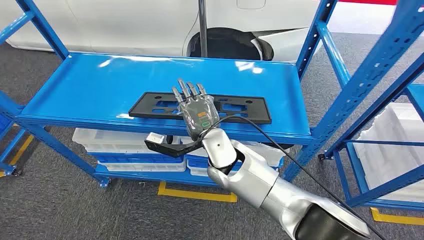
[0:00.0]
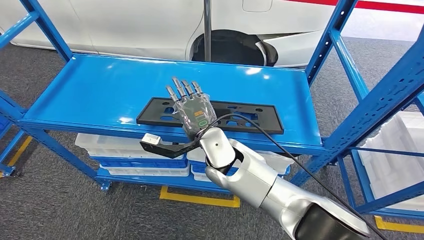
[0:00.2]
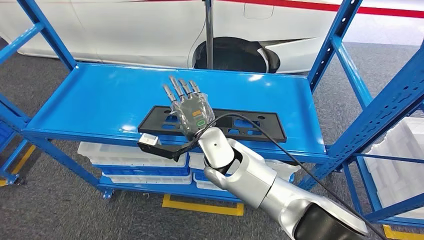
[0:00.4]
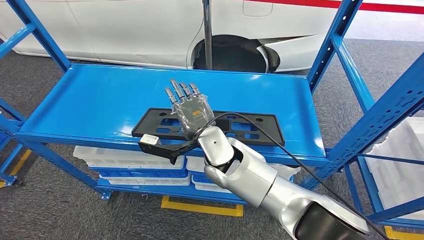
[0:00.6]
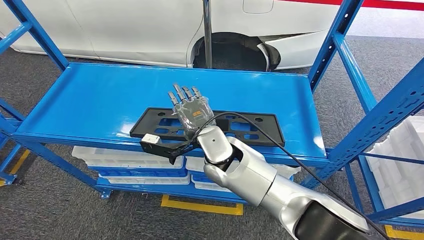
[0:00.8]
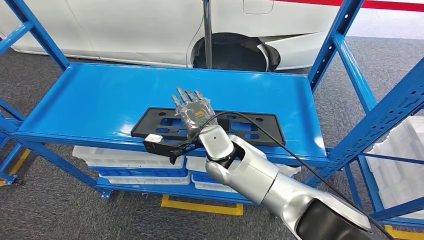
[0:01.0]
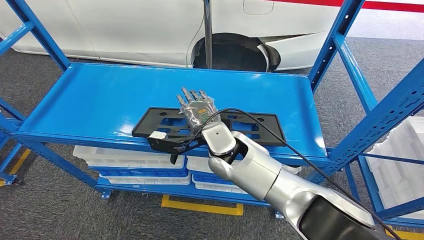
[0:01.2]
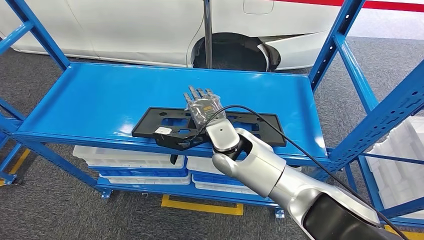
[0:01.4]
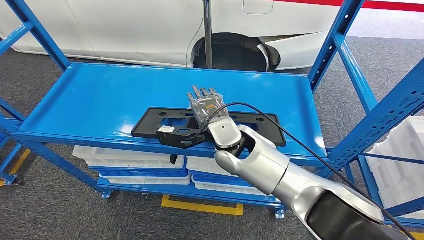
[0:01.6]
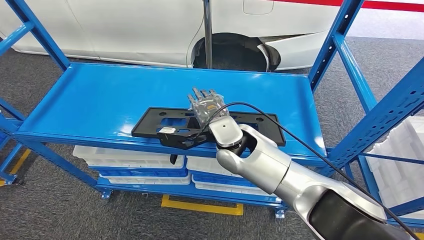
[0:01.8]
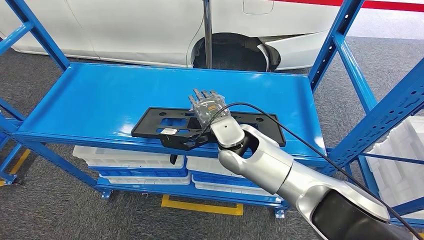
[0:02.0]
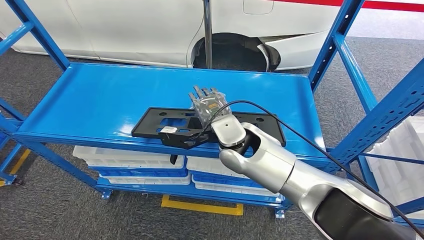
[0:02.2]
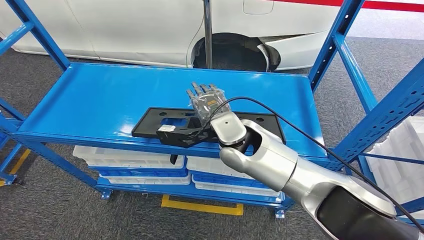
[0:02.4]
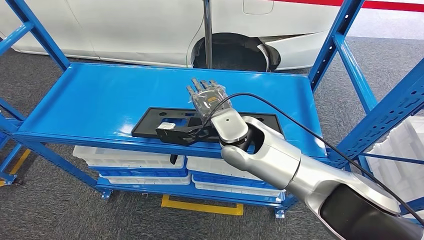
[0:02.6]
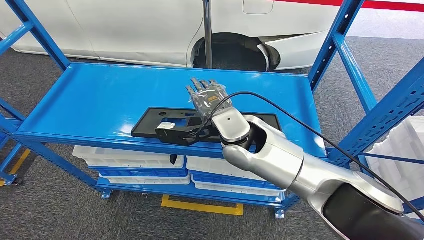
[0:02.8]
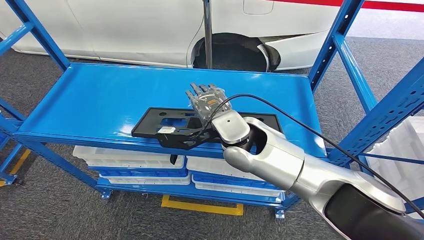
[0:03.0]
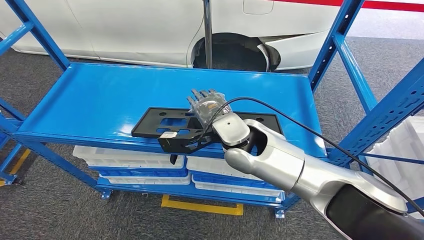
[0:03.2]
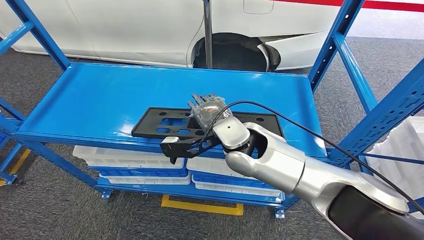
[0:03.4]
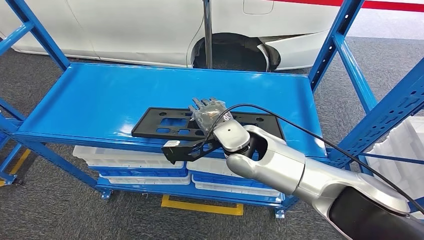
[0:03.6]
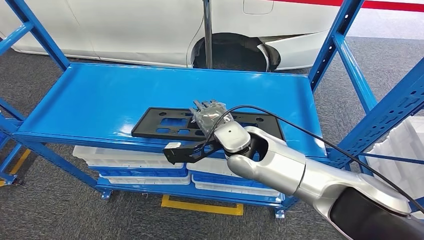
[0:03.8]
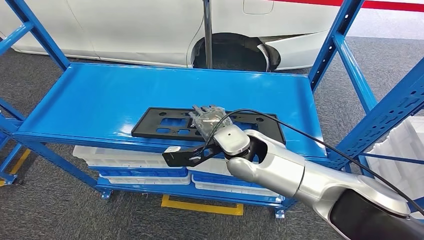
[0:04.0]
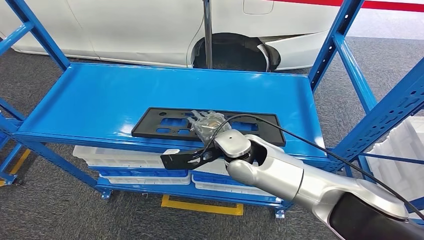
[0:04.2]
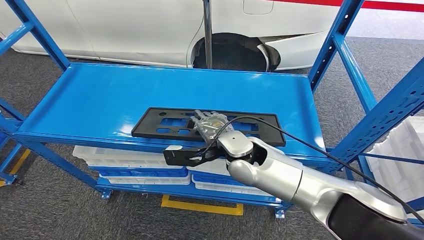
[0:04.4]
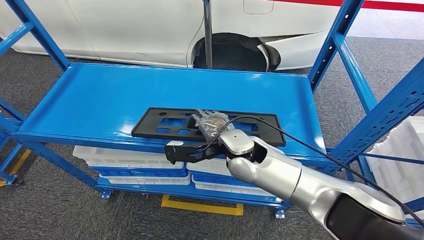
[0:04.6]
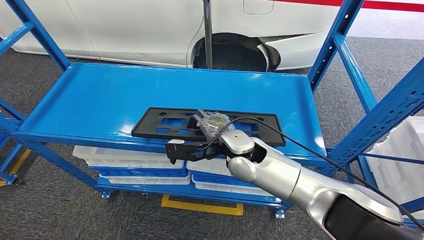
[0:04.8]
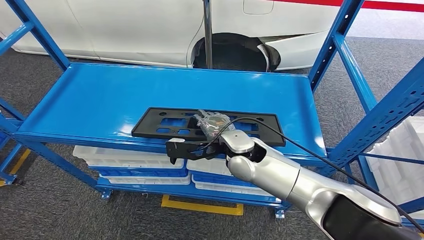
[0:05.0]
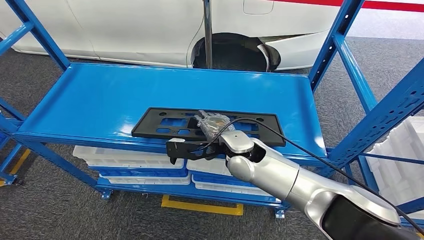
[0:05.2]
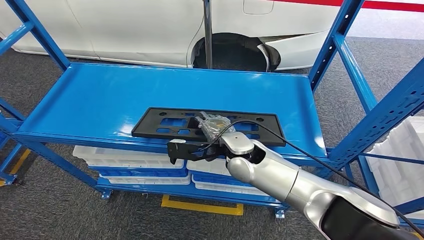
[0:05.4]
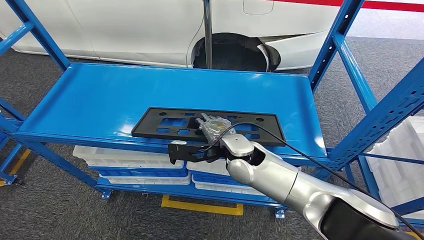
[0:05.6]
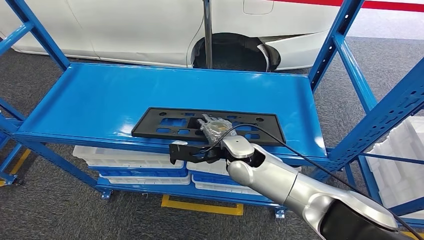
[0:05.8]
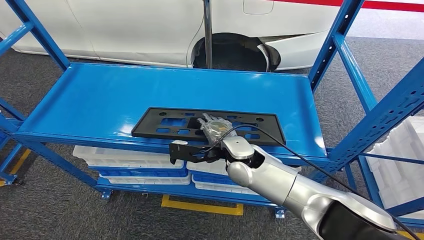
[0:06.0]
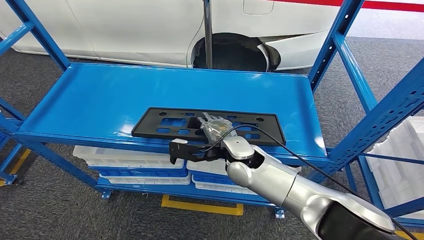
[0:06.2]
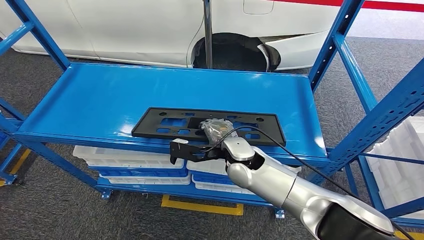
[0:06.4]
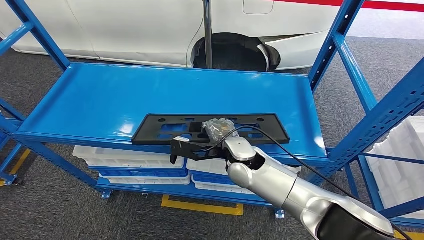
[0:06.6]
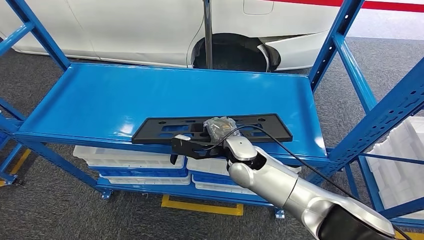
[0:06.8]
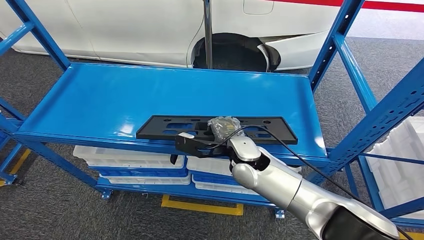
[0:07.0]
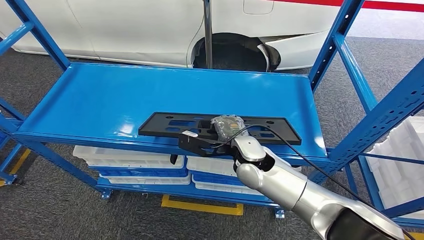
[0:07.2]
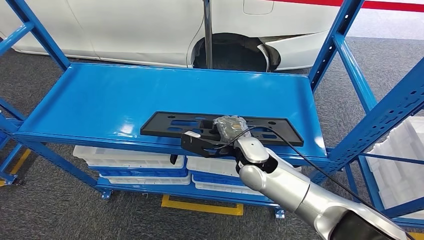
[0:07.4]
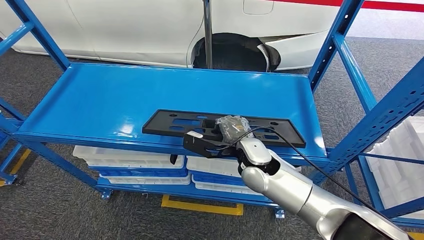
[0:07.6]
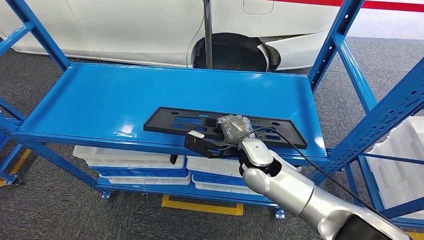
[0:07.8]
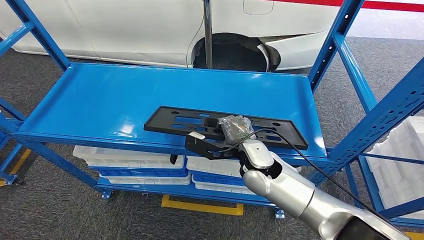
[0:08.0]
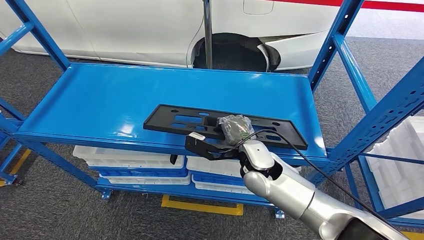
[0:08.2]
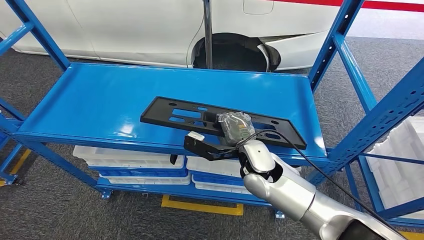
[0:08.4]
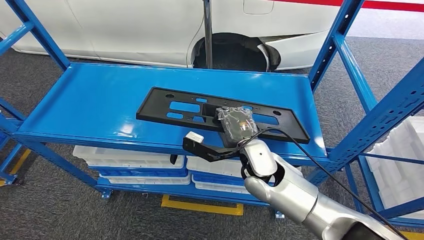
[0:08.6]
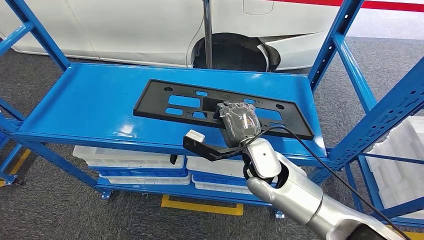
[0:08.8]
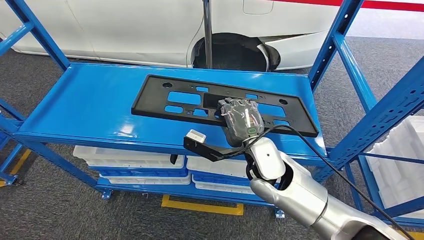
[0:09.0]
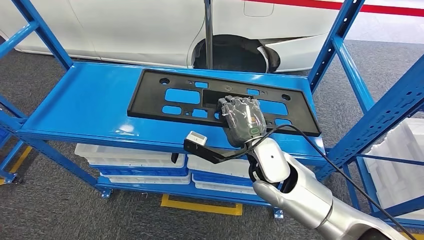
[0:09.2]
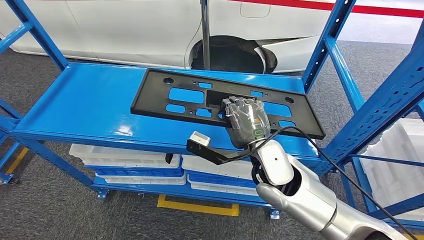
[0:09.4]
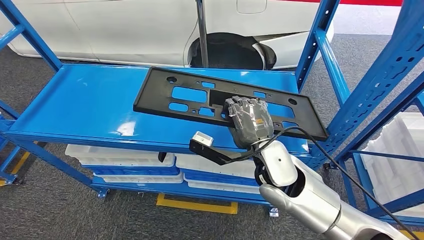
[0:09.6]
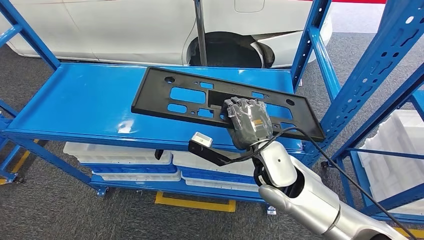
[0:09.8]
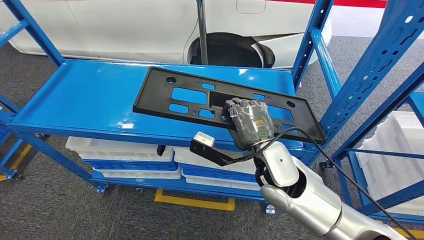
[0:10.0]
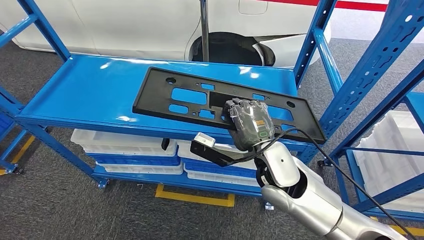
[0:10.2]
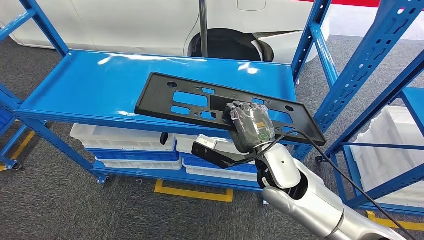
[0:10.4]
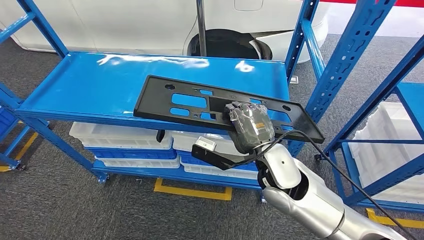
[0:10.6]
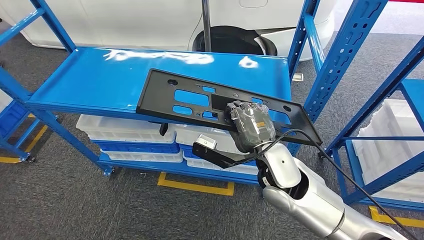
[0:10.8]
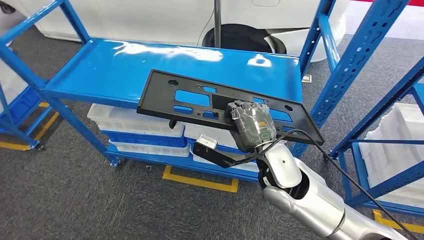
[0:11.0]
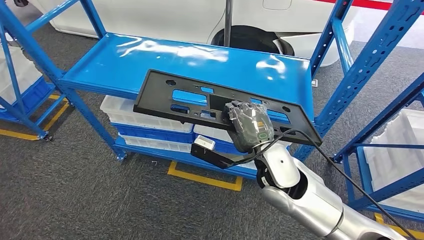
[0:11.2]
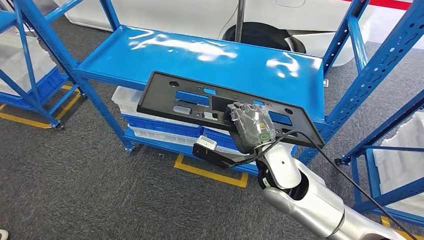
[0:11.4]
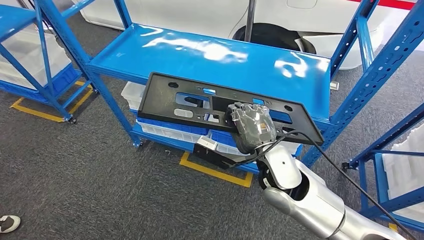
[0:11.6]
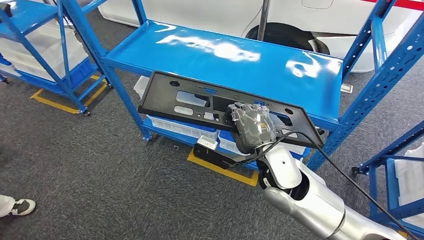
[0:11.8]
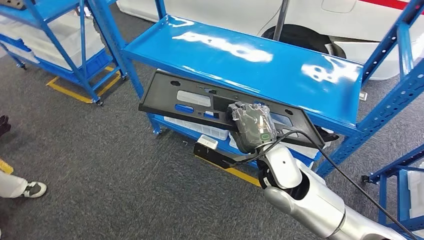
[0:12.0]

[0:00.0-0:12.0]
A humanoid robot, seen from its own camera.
Step, 0:00.0 to 0:08.6: Pick up the large material from the shelf.
0:01.6 to 0:03.0: The hands move only a little.
0:03.0 to 0:04.4: The right hand is displaced downward by some 5 cm.
0:04.4 to 0:06.0: The hands move only a little.
0:06.0 to 0:07.6: The hands move only a little.

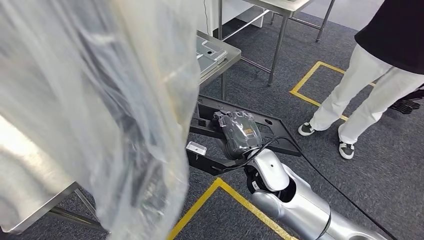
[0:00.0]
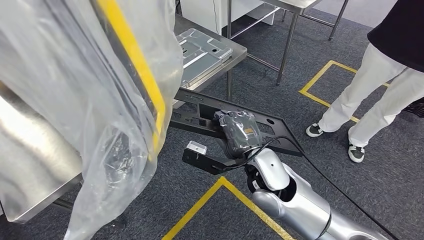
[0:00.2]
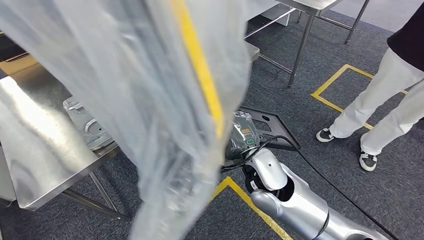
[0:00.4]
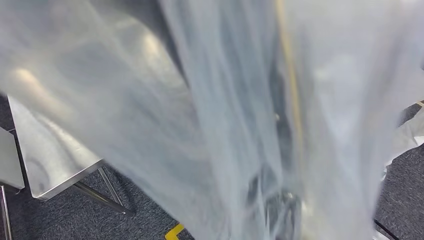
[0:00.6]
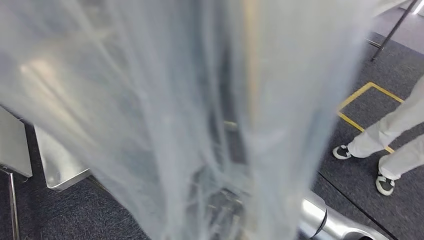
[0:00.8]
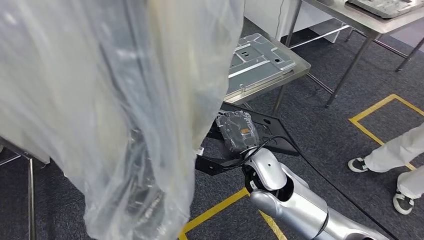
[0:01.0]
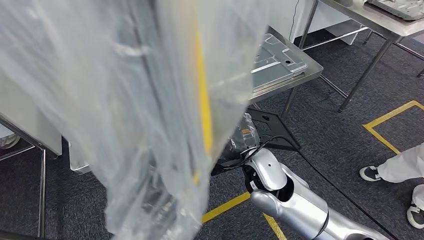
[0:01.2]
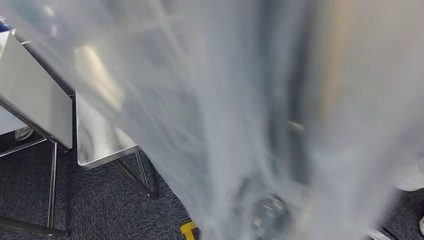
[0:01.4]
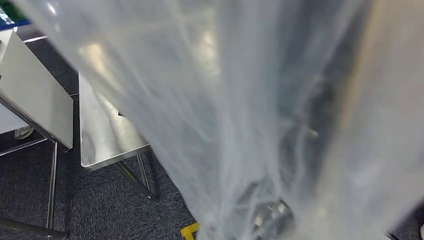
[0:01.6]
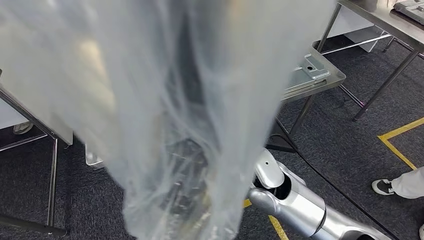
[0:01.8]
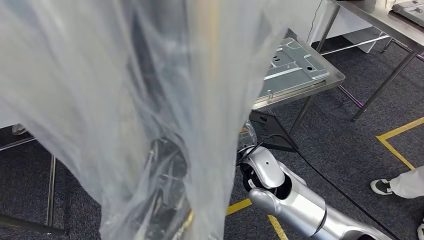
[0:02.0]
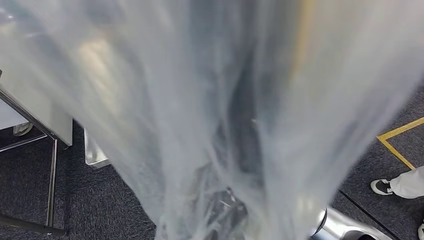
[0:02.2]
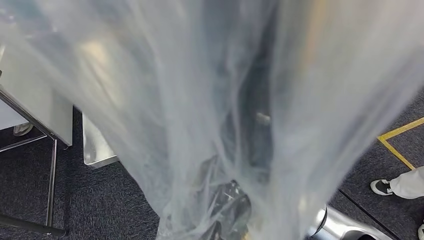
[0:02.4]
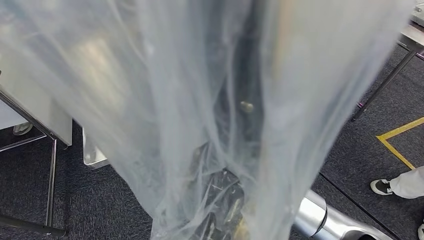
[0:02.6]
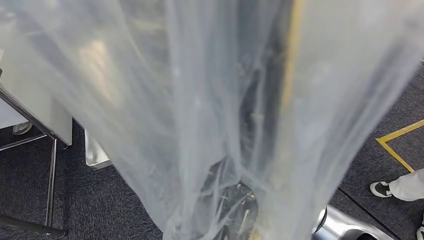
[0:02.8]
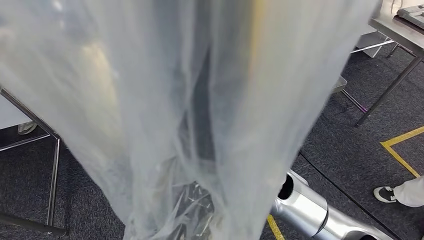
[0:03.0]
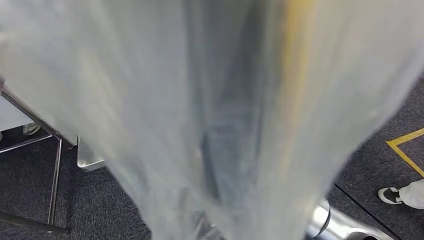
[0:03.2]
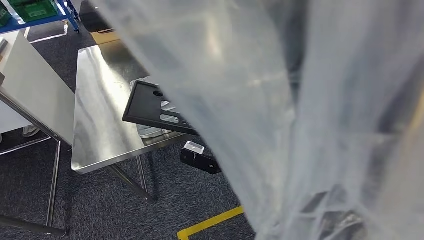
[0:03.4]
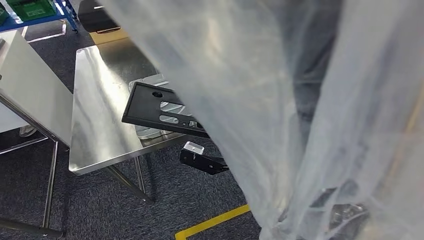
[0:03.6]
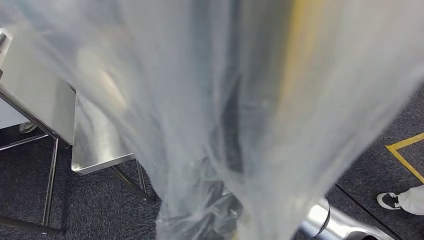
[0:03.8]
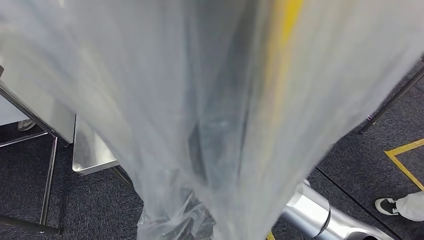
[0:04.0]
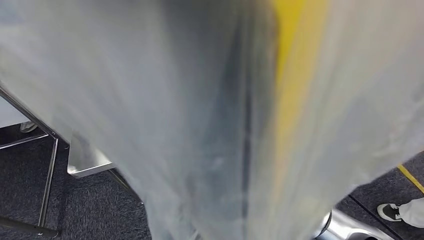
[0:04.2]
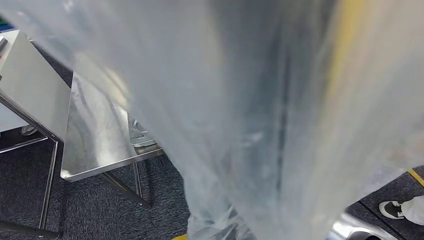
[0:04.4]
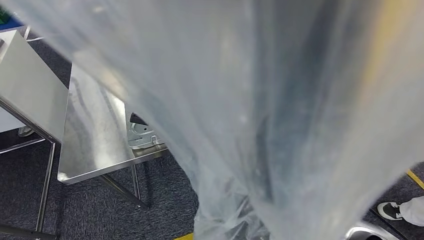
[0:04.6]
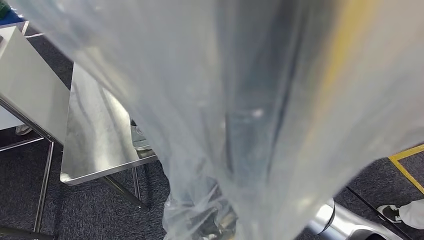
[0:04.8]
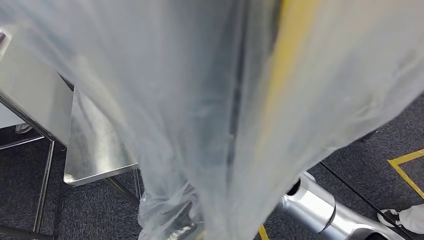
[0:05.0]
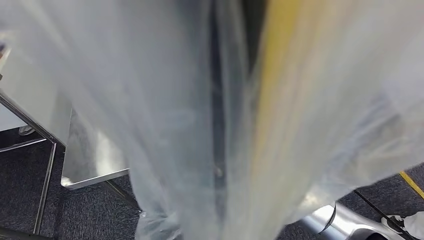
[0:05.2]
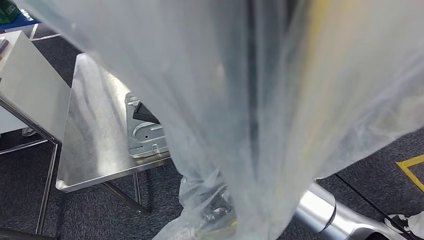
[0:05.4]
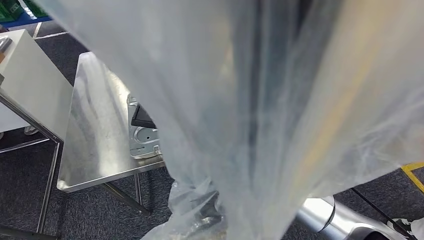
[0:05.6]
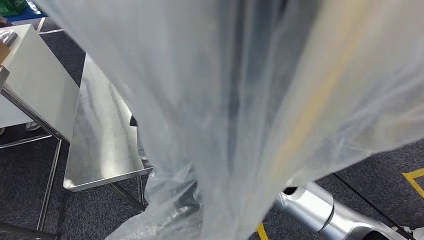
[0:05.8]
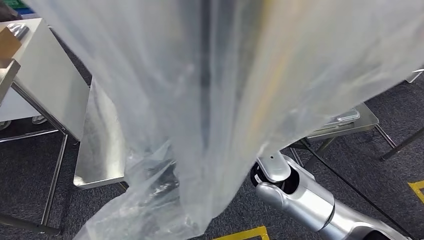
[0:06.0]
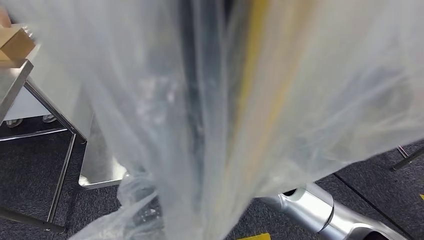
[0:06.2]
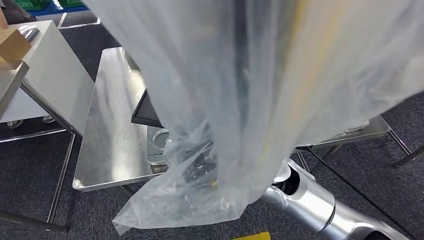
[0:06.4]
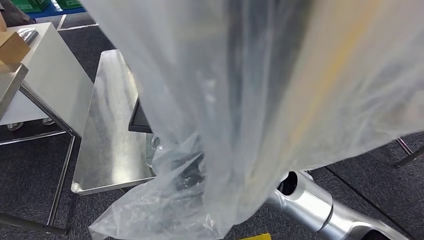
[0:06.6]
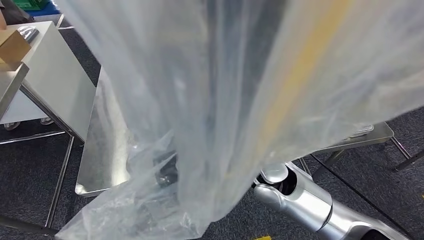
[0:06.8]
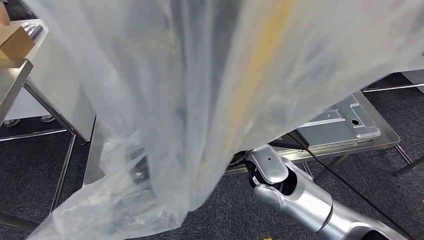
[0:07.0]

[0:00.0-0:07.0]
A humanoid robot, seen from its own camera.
Step, 0:00.0 to 0:02.6: Move the large material to the workbench.
